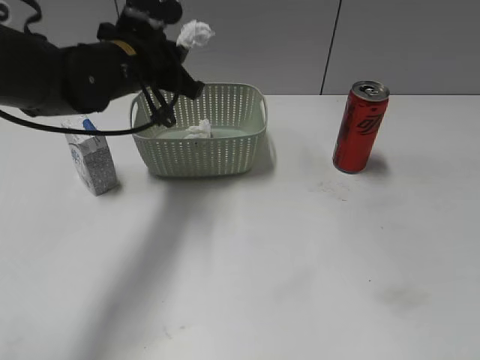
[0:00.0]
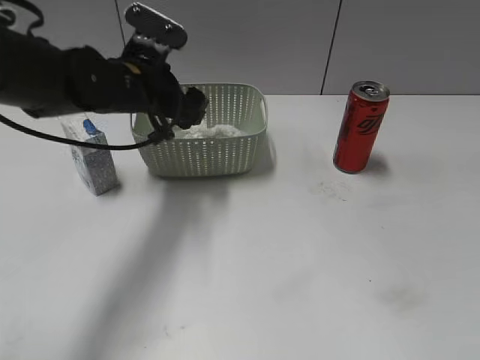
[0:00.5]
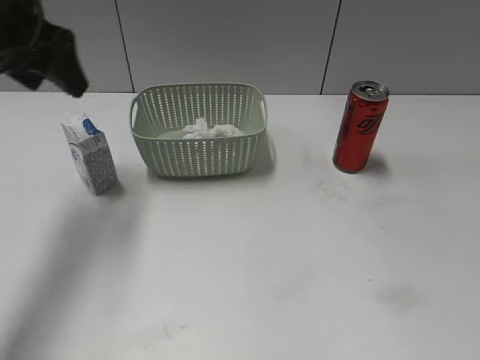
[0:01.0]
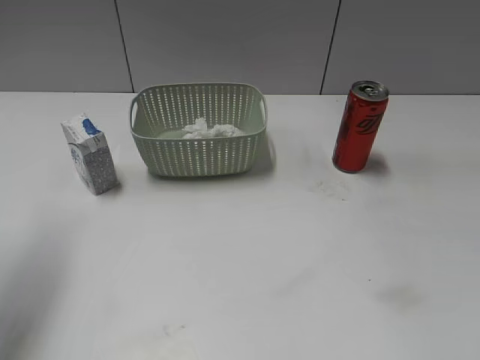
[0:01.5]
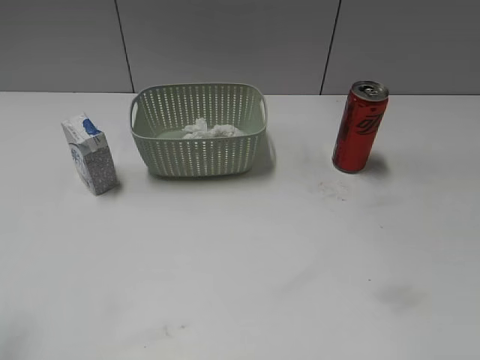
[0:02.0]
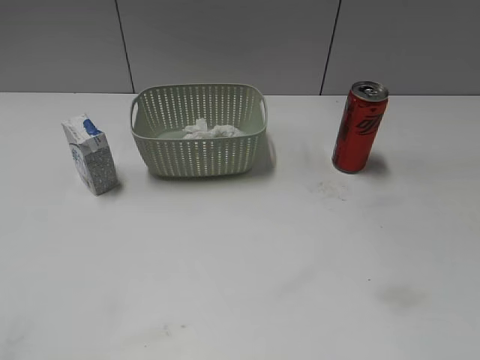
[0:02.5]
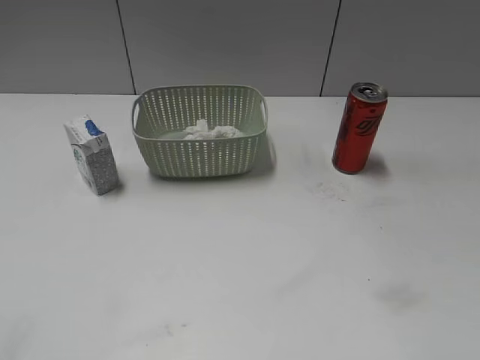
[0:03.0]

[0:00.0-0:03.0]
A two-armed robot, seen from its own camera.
0:00.0 to 0:01.5: The left gripper shifts roughly 25 cm to the left, backward and upward, and opens.
0:01.5 to 0:03.0: The left gripper moves backward, some 25 cm.

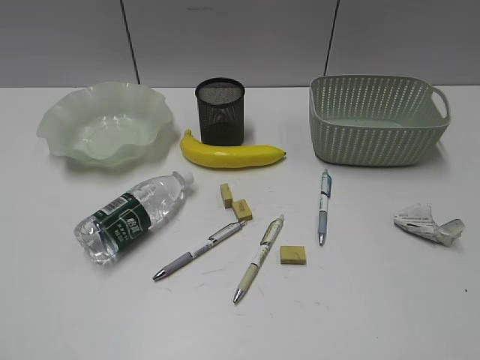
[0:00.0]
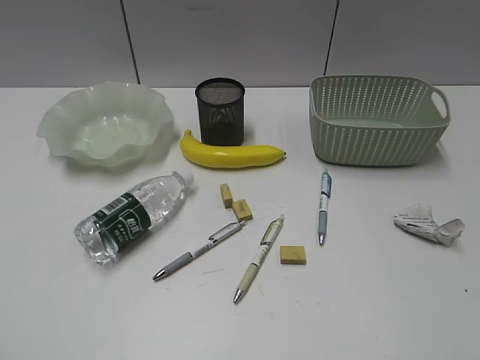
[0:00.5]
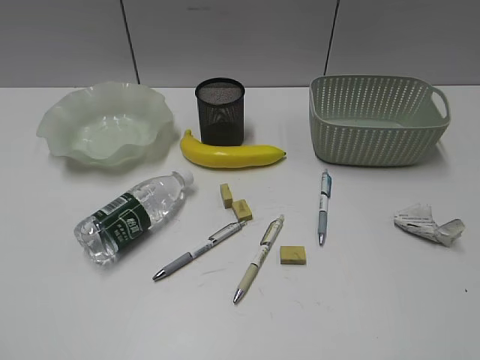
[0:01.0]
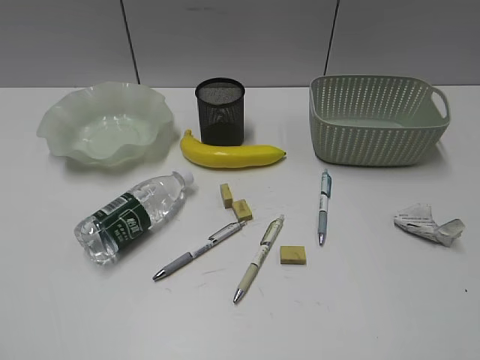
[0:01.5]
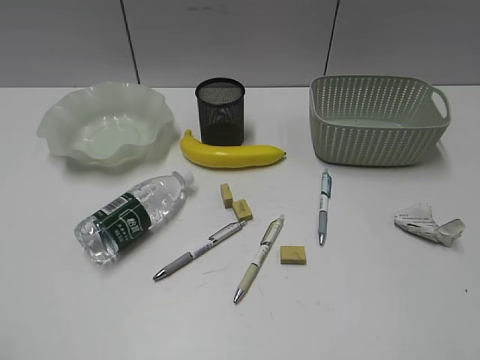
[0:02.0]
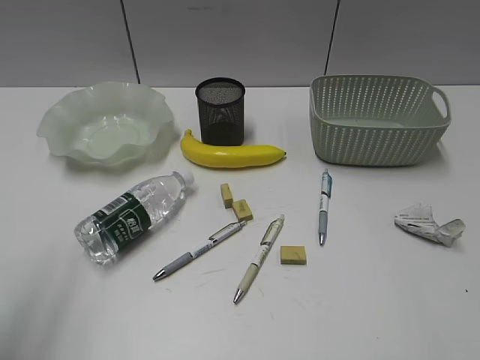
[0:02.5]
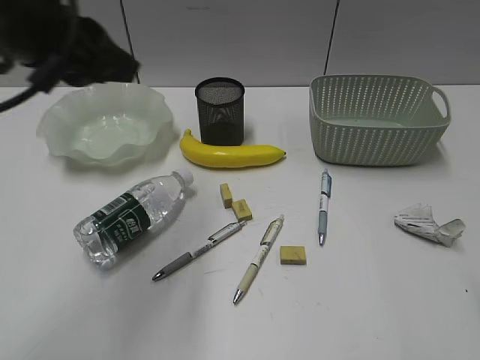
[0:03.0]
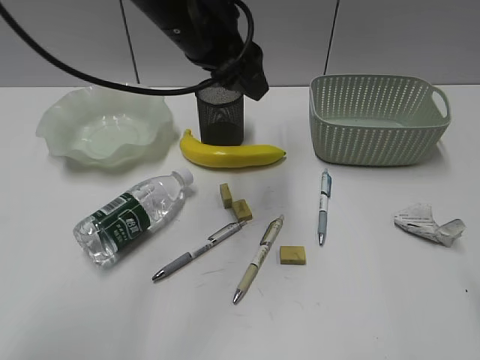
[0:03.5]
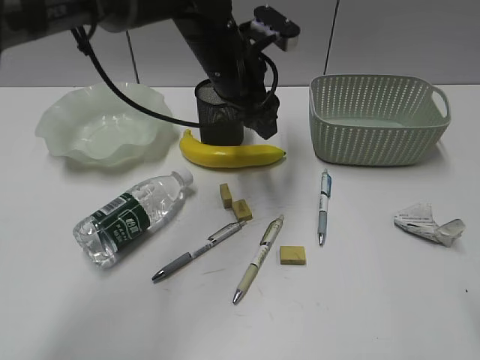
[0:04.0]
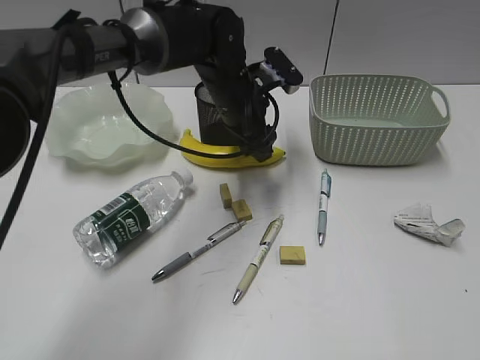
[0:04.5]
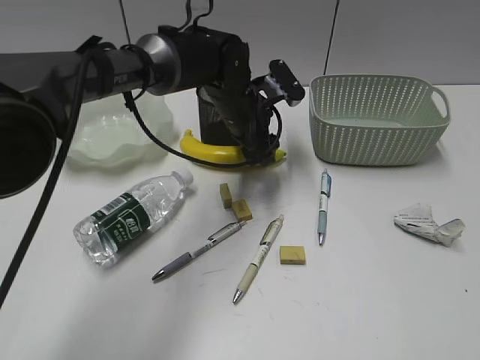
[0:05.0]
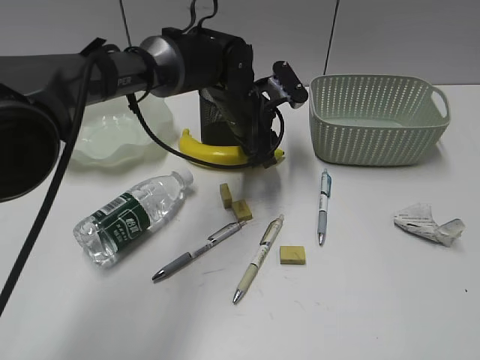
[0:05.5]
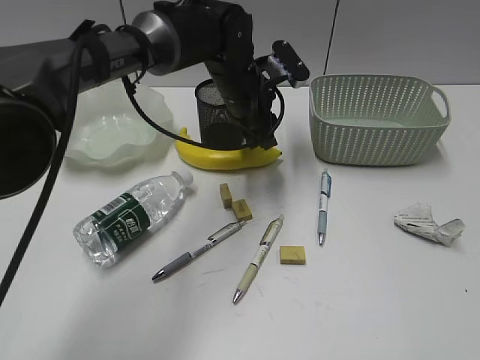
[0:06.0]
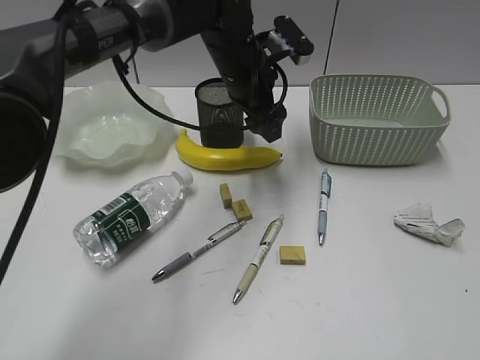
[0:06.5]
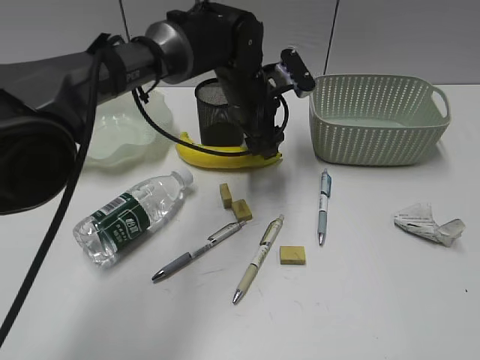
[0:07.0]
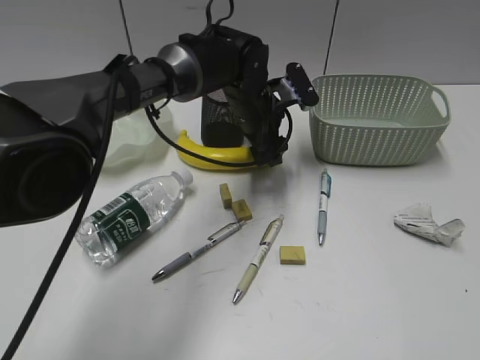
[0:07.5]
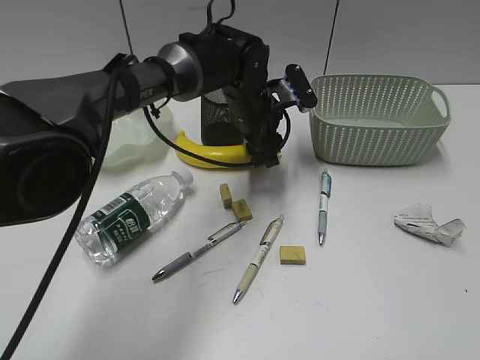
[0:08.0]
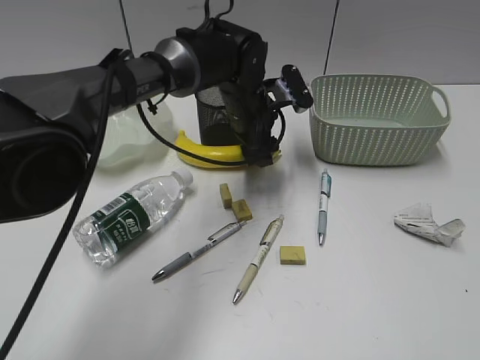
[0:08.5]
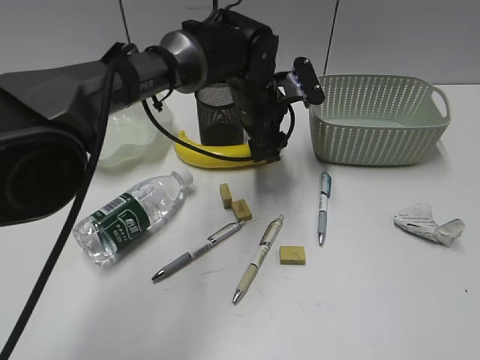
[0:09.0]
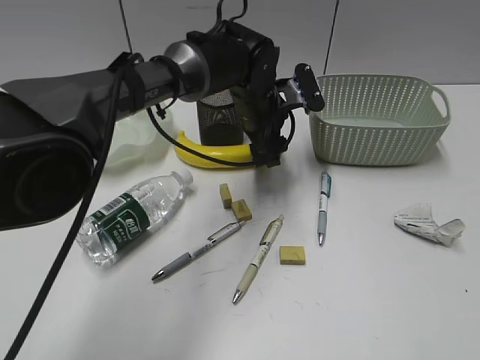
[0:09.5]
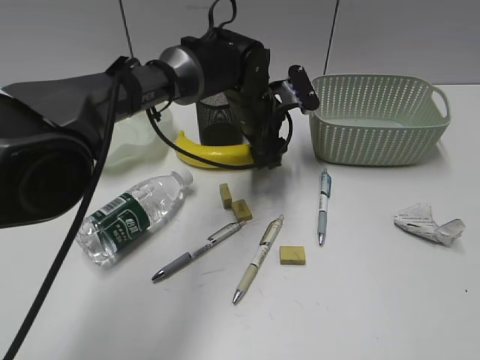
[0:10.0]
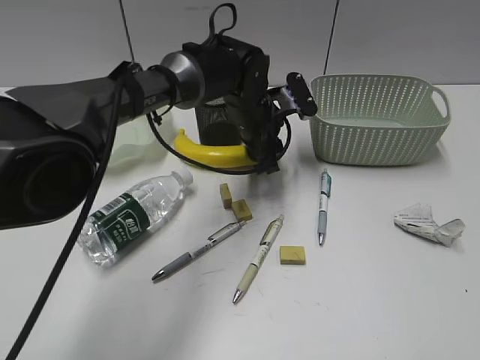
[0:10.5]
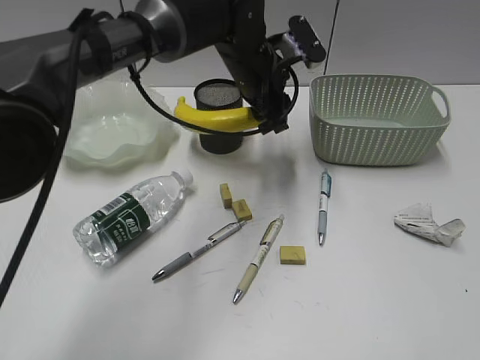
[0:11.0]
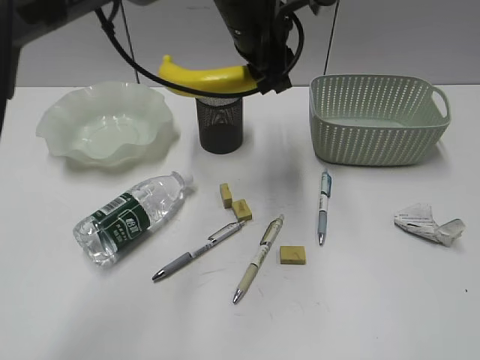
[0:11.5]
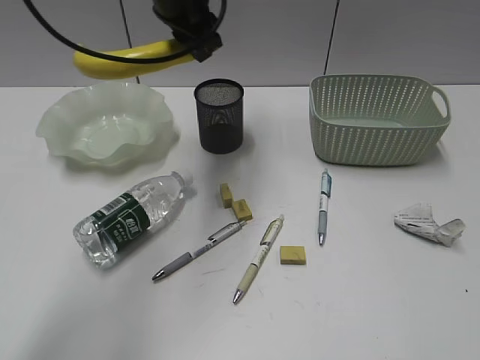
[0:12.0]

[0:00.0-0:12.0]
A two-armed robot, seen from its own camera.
Step, 0:02.0 to 0:10.0: Grasp the banana with left gripper.
0:02.0 to 0:04.0: The right gripper travels forward by some 10 cm; the left gripper shifts roughly 50 cm forward and to the right, and opens.
0:04.0 to 0:06.0: The right gripper travels backward by some 10 cm. Meanwhile the left gripper is displaced downward by some 5 cm, and closes.
0:06.0 to 0:08.0: The left gripper opens and closes again.
0:08.0 to 0:10.0: The grippers make only small movements.
0:10.0 to 0:12.0: The left gripper travels upward and to the left by about 20 cm, and closes up.

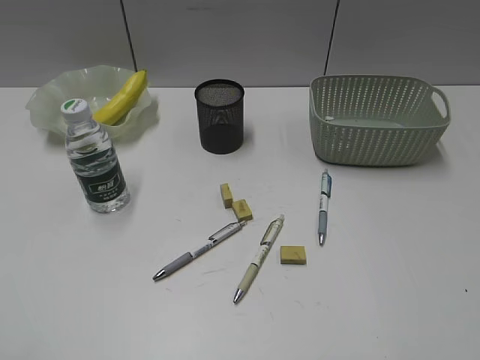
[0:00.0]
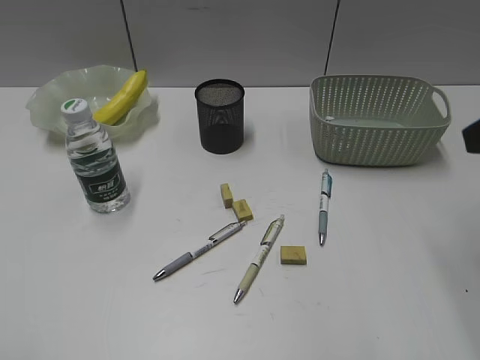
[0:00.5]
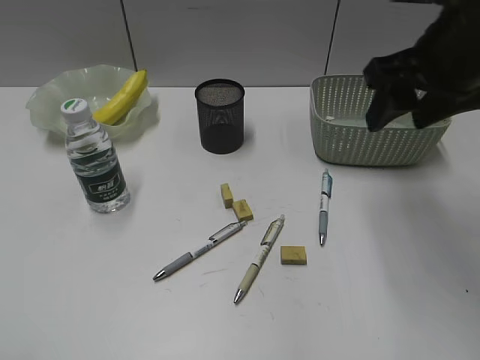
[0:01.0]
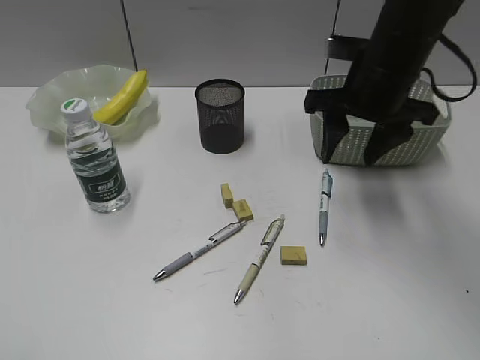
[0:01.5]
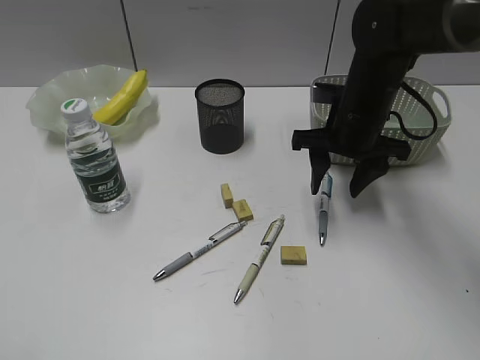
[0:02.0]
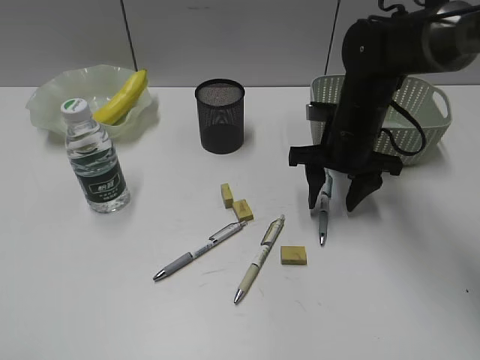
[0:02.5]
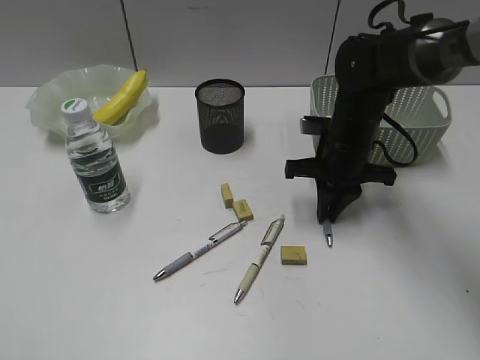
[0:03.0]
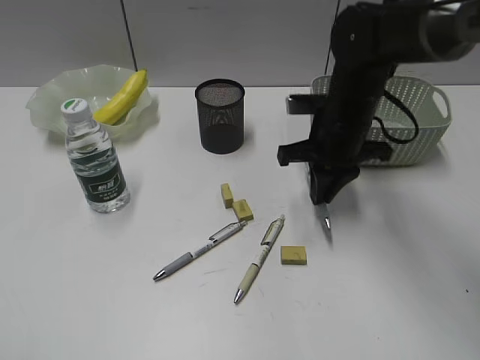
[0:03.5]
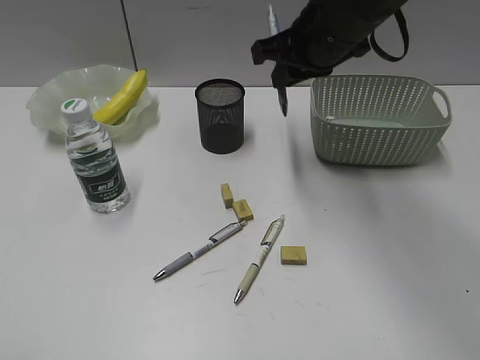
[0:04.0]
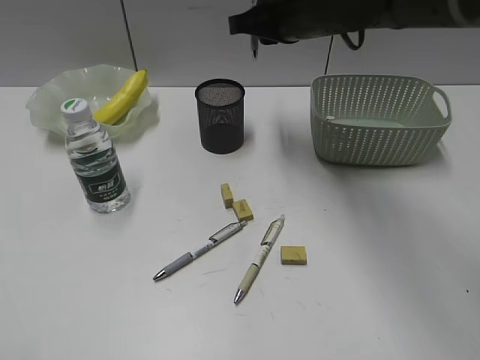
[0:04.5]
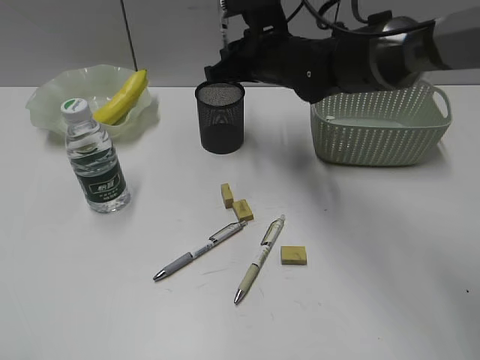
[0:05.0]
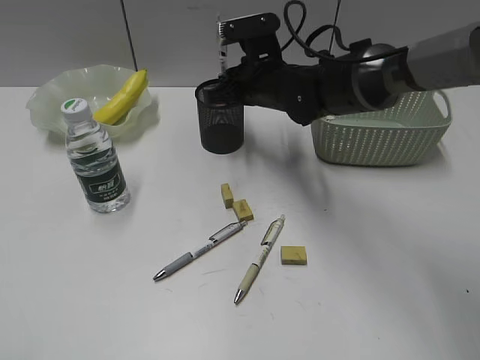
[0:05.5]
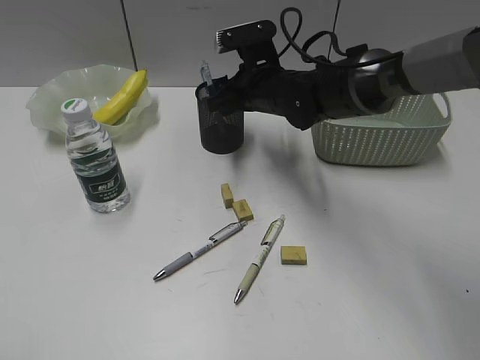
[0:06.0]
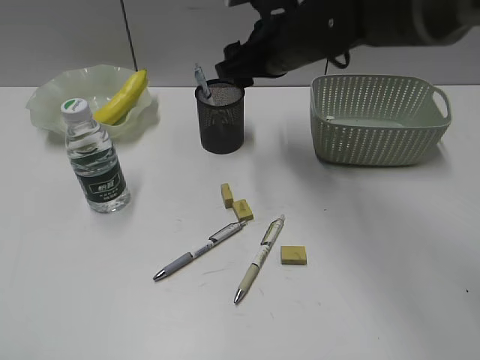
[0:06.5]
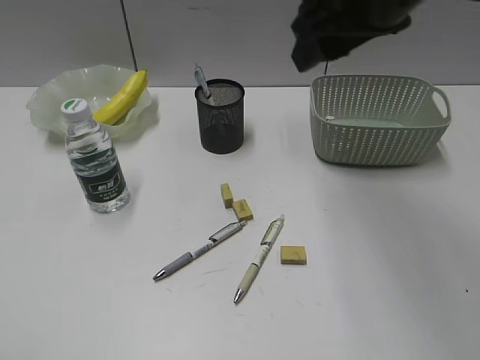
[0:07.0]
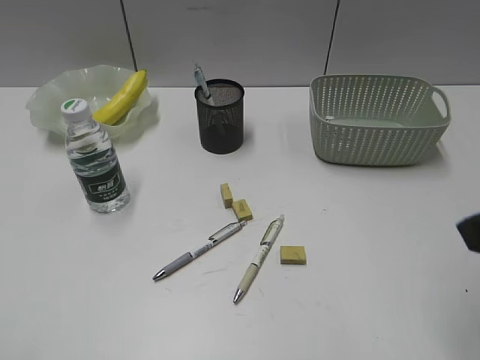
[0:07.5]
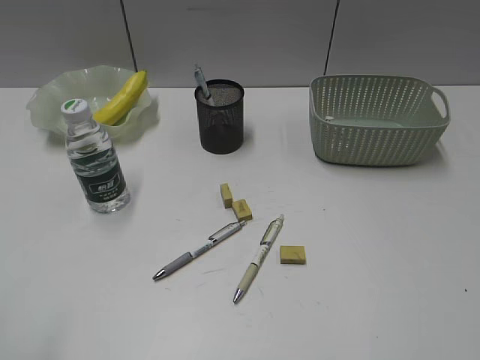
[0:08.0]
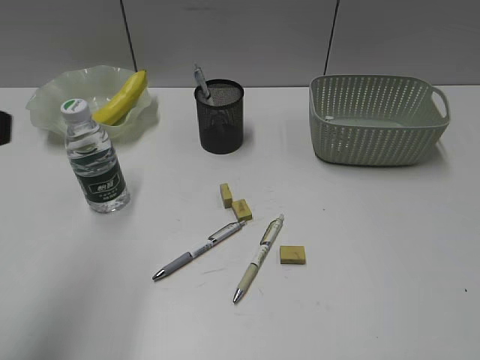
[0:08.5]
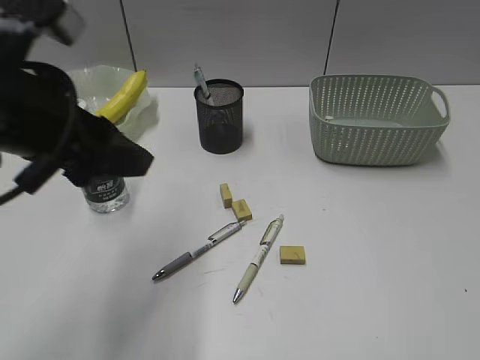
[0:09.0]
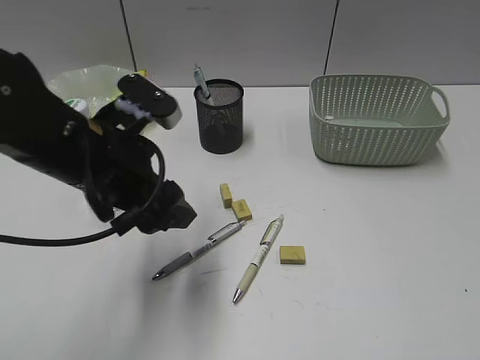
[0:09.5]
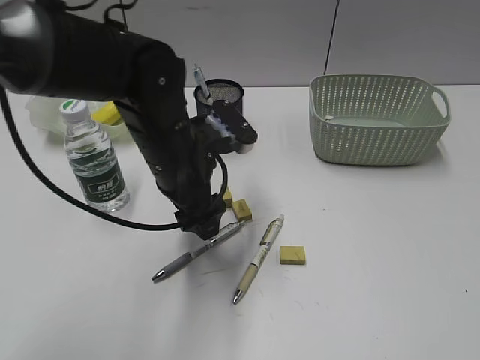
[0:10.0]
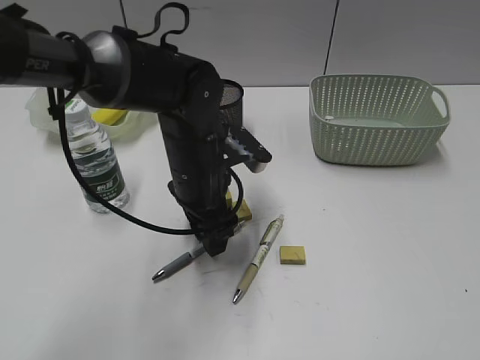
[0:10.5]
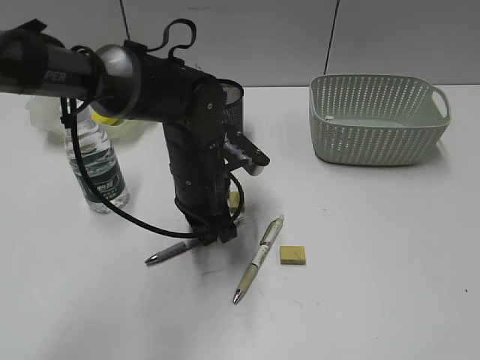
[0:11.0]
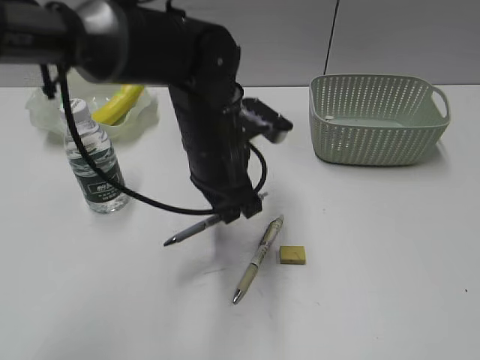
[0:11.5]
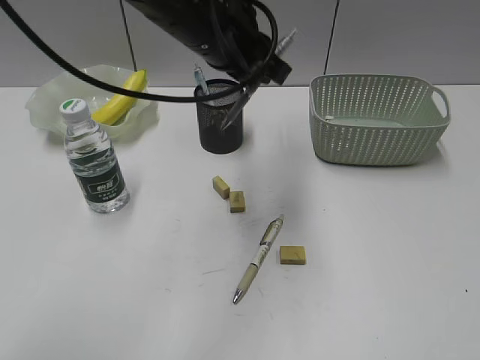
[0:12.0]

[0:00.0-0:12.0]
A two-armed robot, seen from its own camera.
Step, 0:00.0 to 0:03.0: Grasp the blue pen with right gripper.
Step, 0:03.5 to 0:06.0: Place the blue pen in pen holder with right gripper.
Step, 0:06.5 to 0:11.0: Grasp the gray pen with left gripper.
0:00.0 to 0:02.0: The right gripper moves forward, to the left and downward, roughly 40 cm.
0:02.0 to 0:04.0: The right gripper heads upward, covering roughly 10 cm, and closes.
0:04.0 to 0:06.0: The right gripper is displaced downward, to the left and forward by some 15 cm, and opens its fingers.
0:06.0 to 0:08.0: The right gripper heads backward and to the right, covering roughly 50 cm.
0:08.0 to 0:10.0: The left gripper heads forward, to the right and downward, covering roughly 40 cm, while the right gripper closes up.
0:10.0 to 0:12.0: The left gripper travels upward by roughly 10 cm, and closes up.
